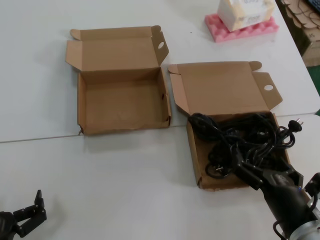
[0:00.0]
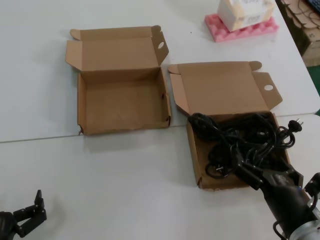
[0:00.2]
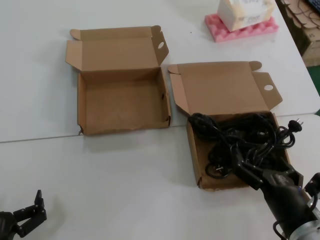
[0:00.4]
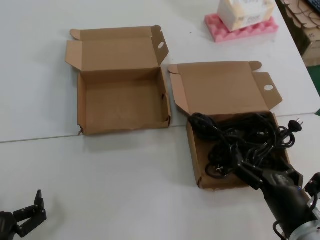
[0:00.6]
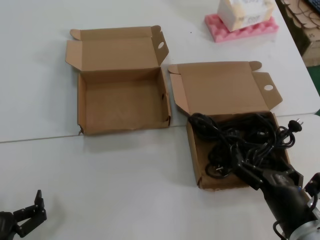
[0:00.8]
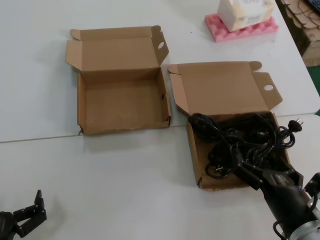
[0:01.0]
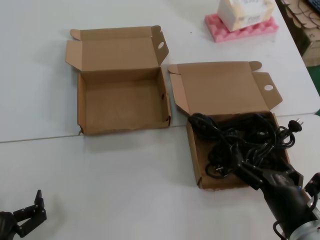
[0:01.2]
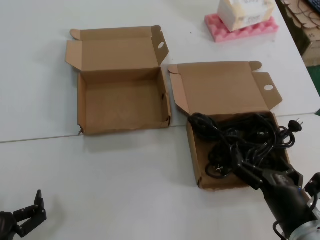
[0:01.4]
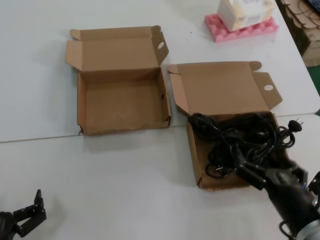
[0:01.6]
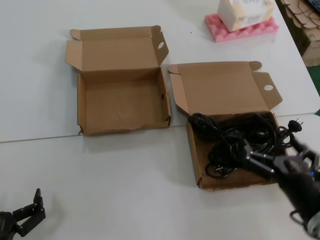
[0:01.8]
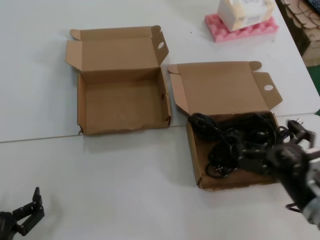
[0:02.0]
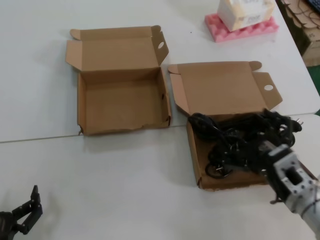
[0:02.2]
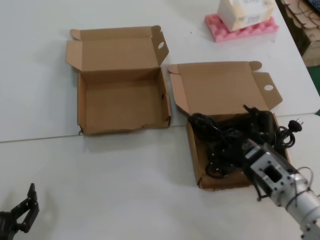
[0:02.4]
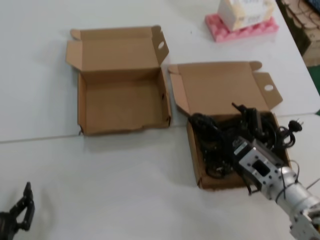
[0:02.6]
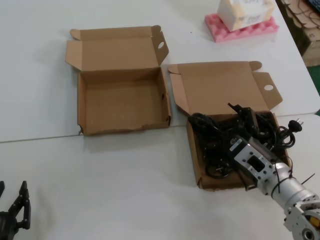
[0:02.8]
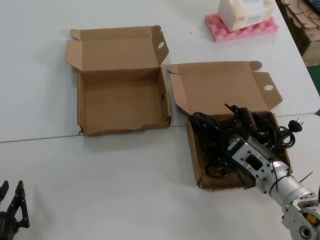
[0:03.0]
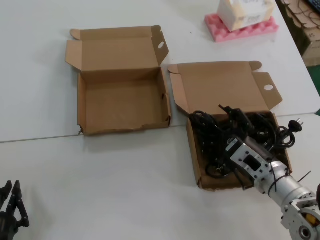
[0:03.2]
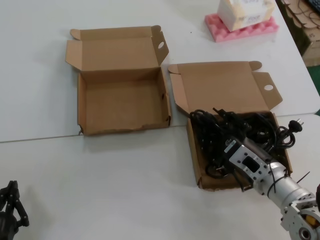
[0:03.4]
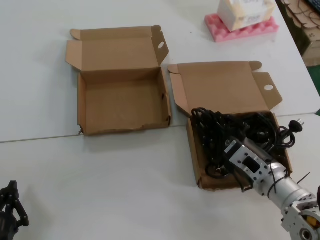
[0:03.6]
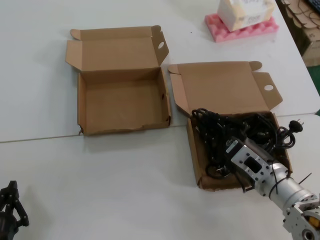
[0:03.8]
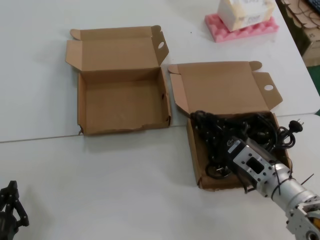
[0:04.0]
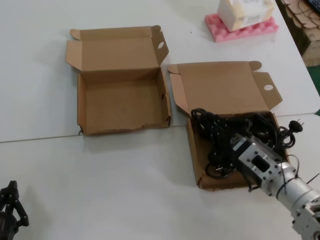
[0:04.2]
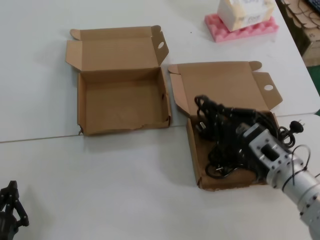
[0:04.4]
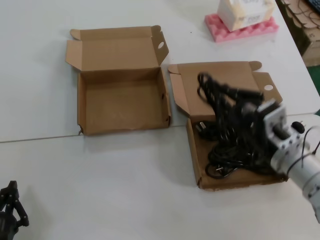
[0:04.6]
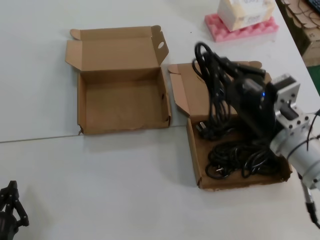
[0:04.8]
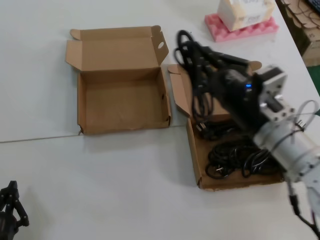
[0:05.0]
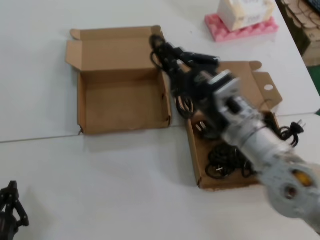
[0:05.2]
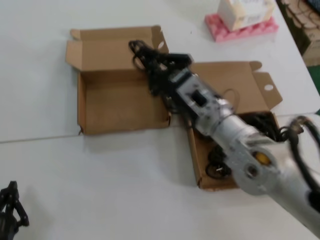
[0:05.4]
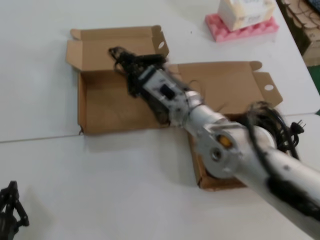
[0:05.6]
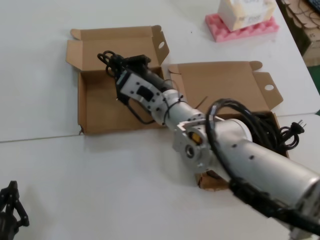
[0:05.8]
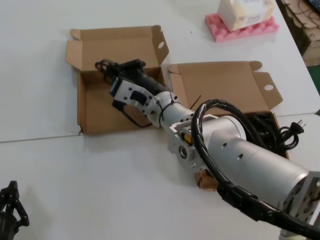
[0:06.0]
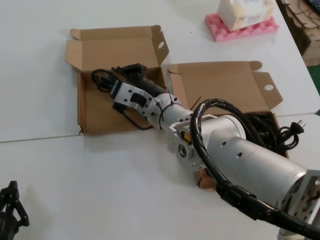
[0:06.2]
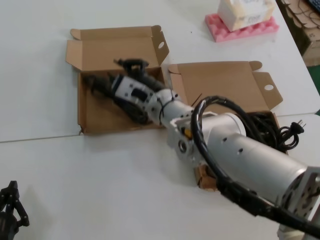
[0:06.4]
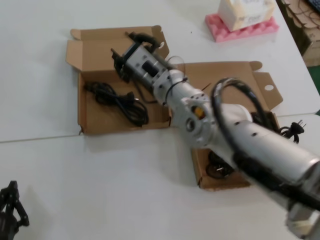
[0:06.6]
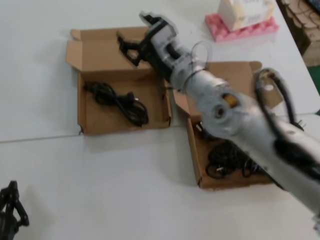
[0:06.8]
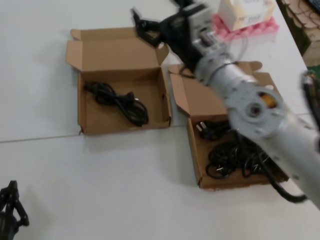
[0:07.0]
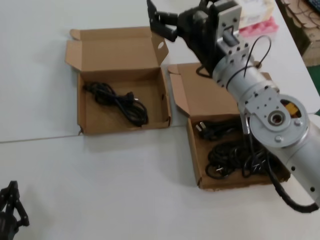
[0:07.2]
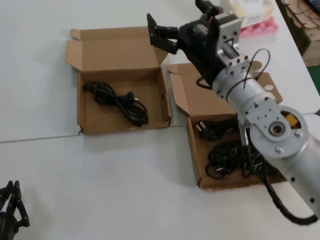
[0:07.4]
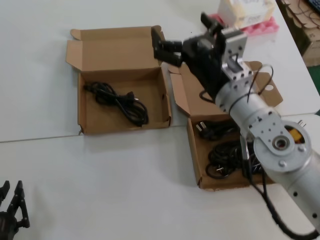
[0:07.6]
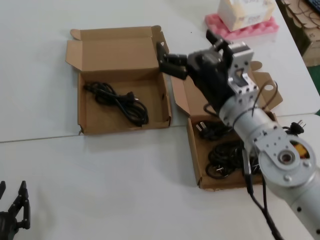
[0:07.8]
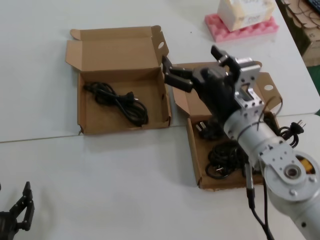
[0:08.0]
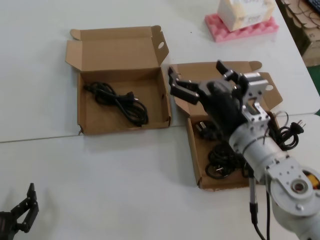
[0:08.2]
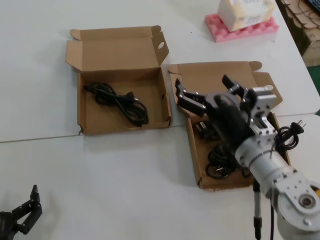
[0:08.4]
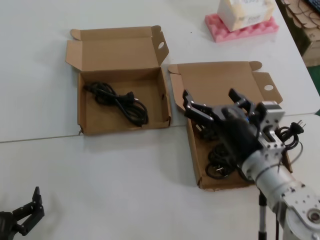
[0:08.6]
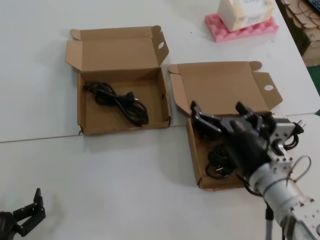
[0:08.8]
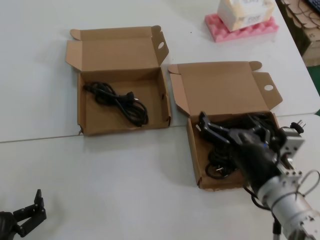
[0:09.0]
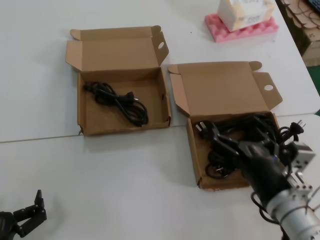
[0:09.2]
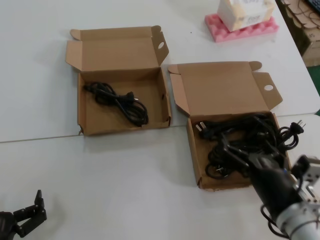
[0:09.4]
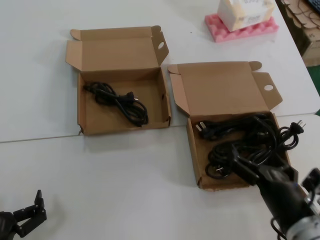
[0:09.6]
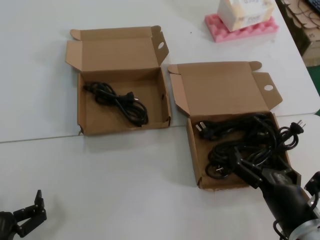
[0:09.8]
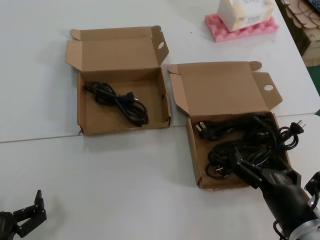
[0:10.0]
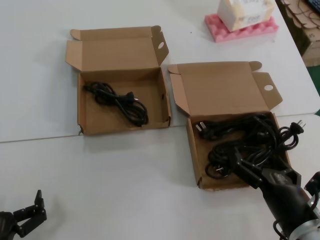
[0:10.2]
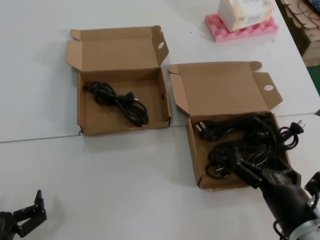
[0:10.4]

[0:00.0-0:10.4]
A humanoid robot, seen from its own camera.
Task of the whole recording: Pick up the power cord from the box containing it and place it in another box.
Step, 0:00.0 to 0:04.2: Grasp the data cable.
Step, 0:04.6 to 0:06.4: Place the data cable in the another box.
0:00.0 to 0:01.4: Both hands stay put.
0:01.4 to 0:03.0: The right hand travels forward by some 15 cm.
0:03.0 to 0:04.4: The hands move only a little.
0:04.4 to 0:06.0: The right hand heads to the left, forward and upward, covering about 25 cm.
0:06.0 to 0:07.4: The right hand travels to the right, upward and backward by approximately 15 cm.
0:07.4 to 0:09.0: The right hand goes some 20 cm downward and backward.
0:09.0 to 0:10.4: The right hand shifts some 5 cm backward.

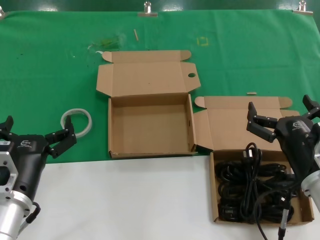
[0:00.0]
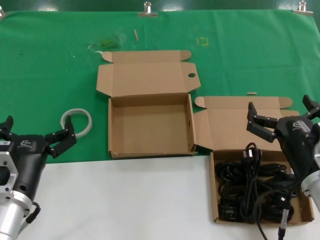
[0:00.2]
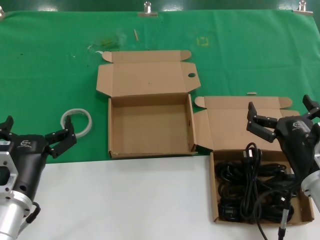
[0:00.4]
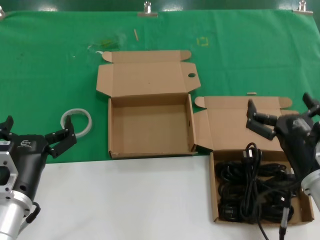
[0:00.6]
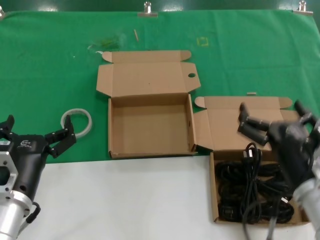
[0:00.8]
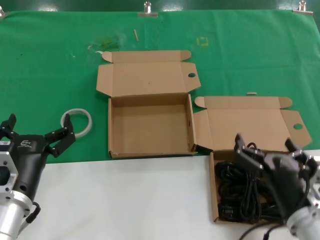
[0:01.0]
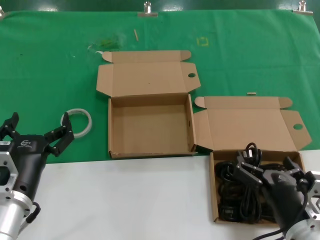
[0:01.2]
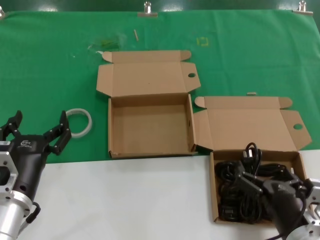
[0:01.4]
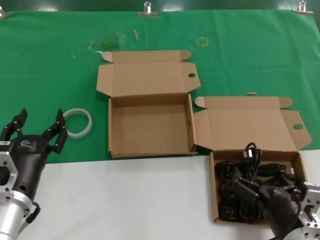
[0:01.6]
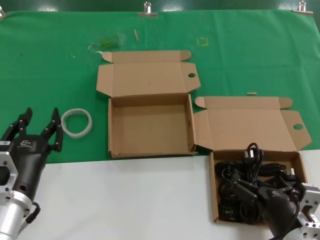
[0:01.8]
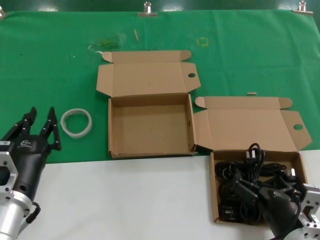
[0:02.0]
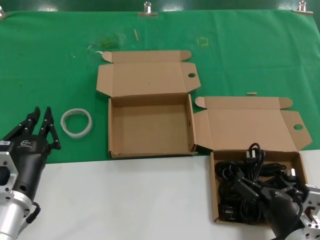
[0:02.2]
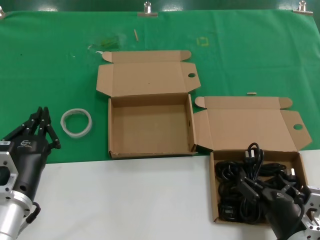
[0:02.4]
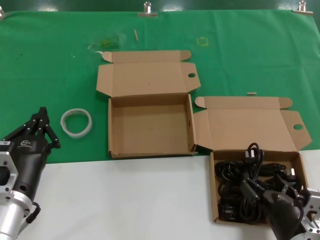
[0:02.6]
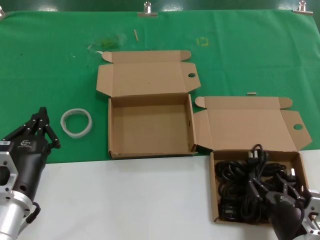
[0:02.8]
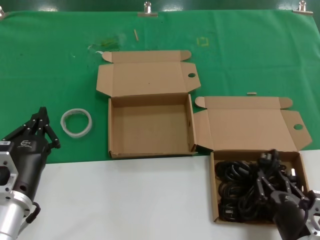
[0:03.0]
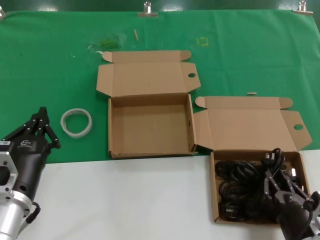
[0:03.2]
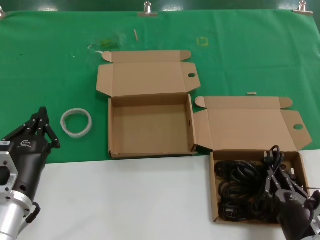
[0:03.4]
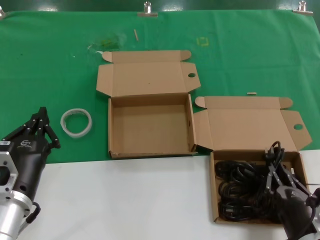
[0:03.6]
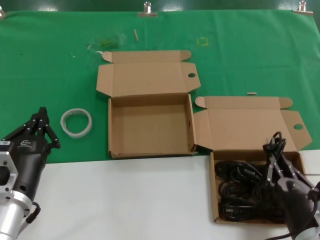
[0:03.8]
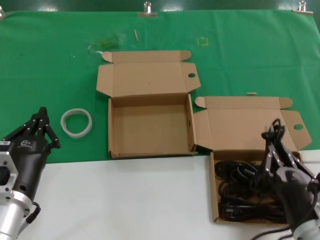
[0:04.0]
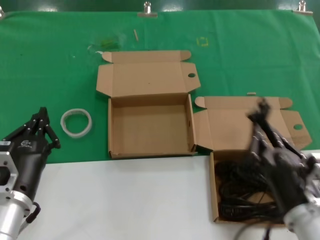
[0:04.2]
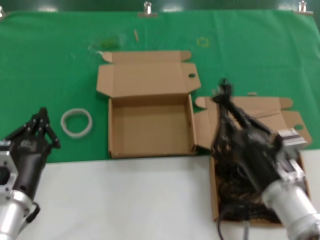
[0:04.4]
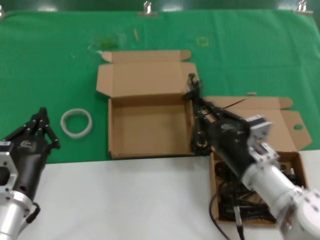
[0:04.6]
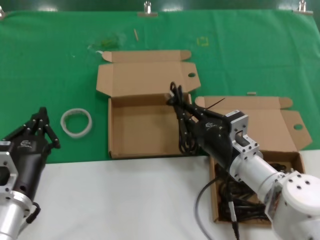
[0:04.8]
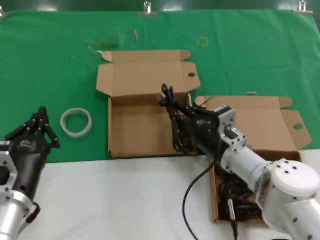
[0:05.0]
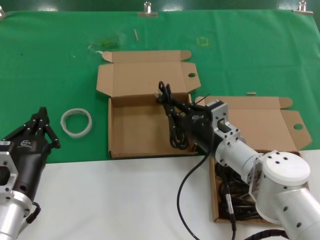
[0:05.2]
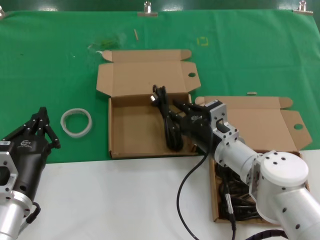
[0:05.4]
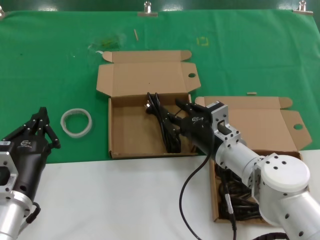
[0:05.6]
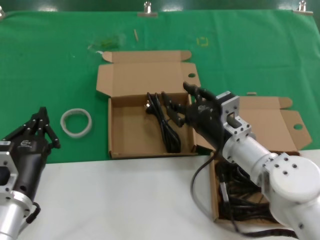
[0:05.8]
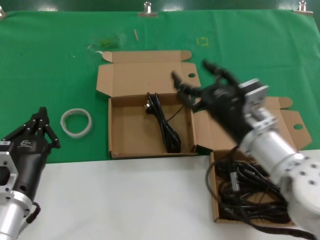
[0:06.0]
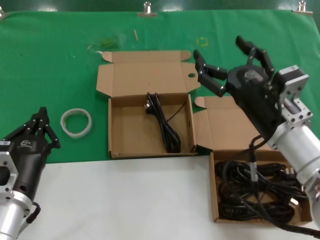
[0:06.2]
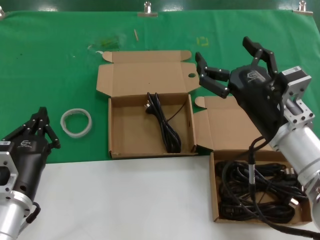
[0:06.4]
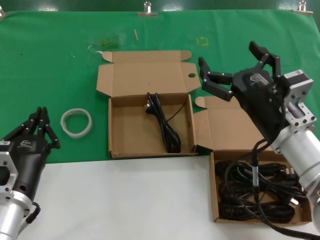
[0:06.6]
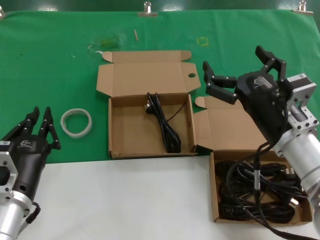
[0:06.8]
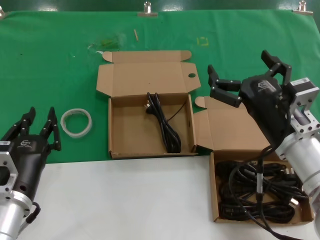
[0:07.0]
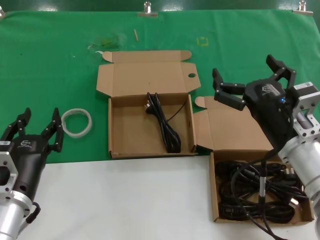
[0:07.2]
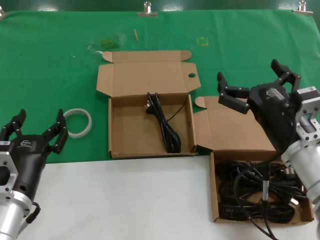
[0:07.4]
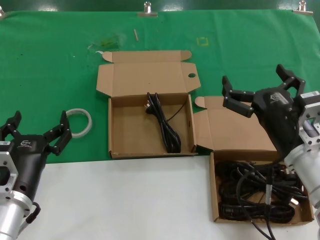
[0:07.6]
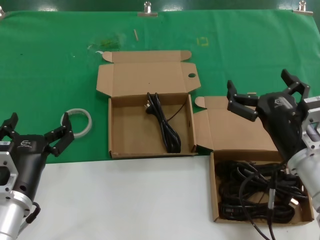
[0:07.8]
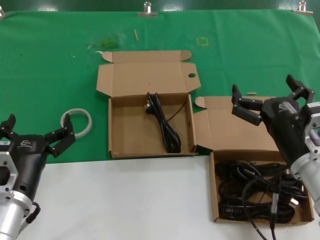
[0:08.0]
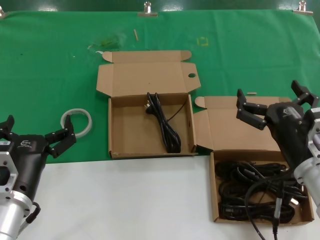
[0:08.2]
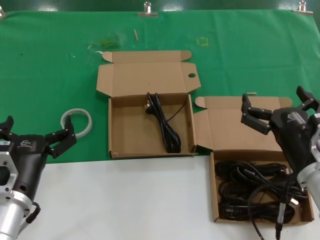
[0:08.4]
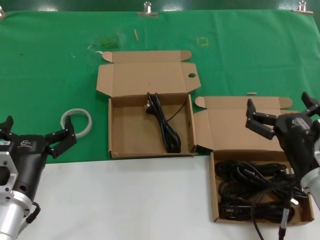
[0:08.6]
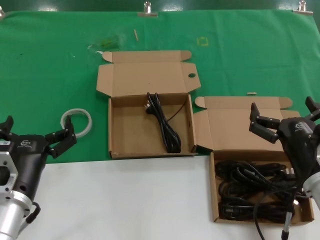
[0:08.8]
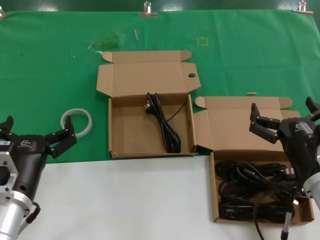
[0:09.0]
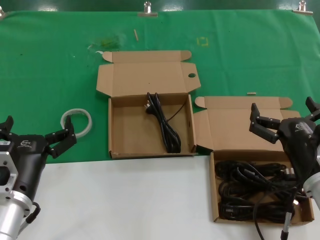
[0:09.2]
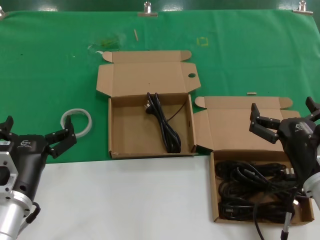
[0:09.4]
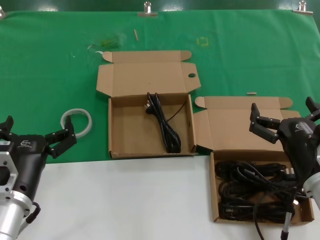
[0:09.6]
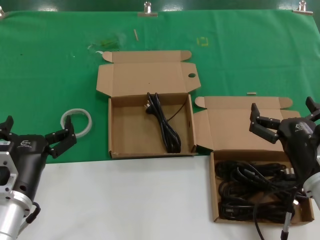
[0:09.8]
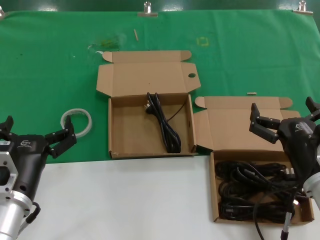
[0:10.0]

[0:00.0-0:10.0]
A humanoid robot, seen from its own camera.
Task of the whole recording: Pick up the power cord from the box containing it and place it in another box.
Step, 0:00.0 to 0:03.4: Grasp the data cable.
Step, 0:03.6 to 0:05.6: Place the data cable in the another box.
0:00.0 to 0:01.4: The right hand travels downward and backward by some 10 cm.
0:01.4 to 0:02.8: The hands move only a little.
0:02.8 to 0:04.2: The right hand is displaced upward by approximately 5 cm.
0:04.2 to 0:05.8: The right hand travels forward by about 15 cm.
0:05.8 to 0:07.2: The right hand shifts roughly 10 cm backward, to the right and upward.
0:07.2 to 0:08.6: The right hand moves about 5 cm.
0:08.6 to 0:10.0: Both hands stay put.
